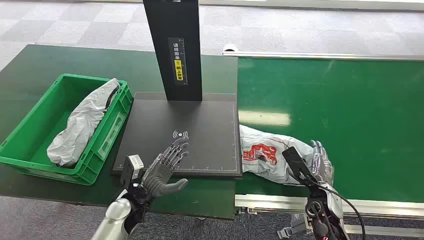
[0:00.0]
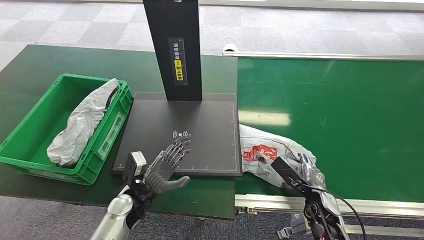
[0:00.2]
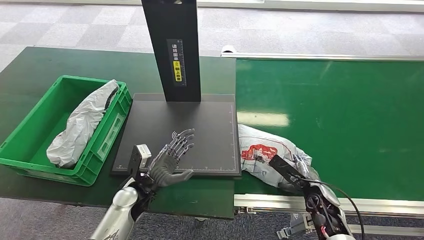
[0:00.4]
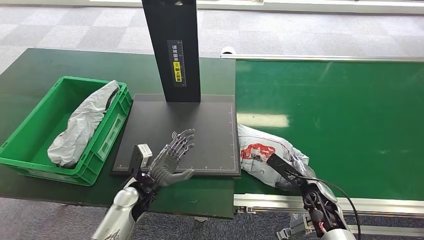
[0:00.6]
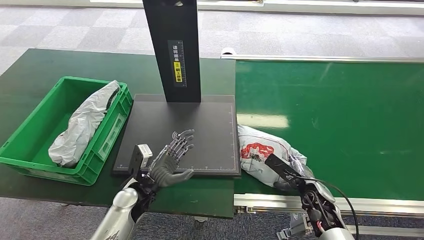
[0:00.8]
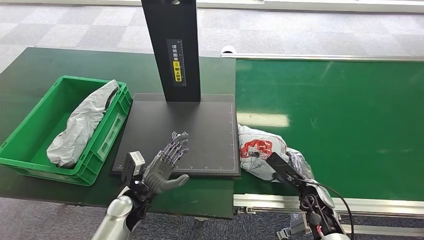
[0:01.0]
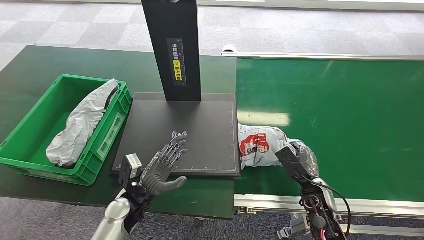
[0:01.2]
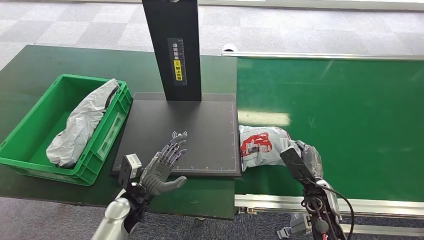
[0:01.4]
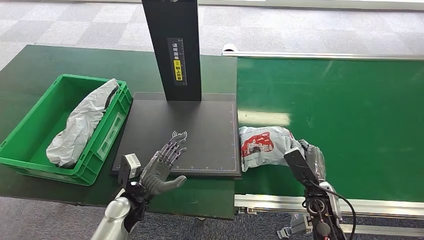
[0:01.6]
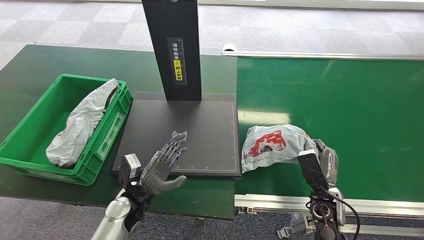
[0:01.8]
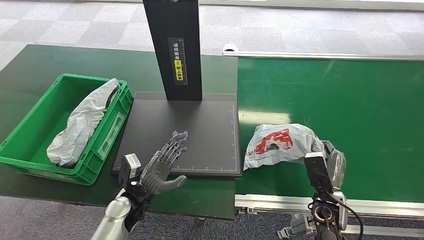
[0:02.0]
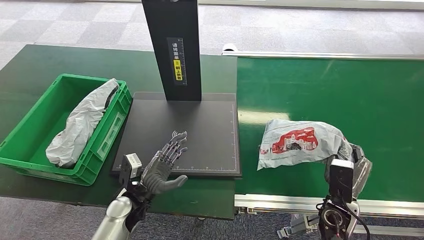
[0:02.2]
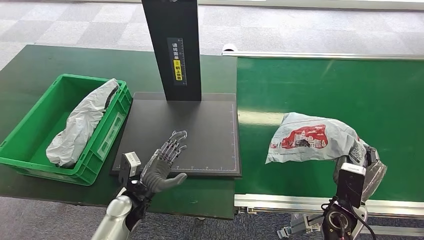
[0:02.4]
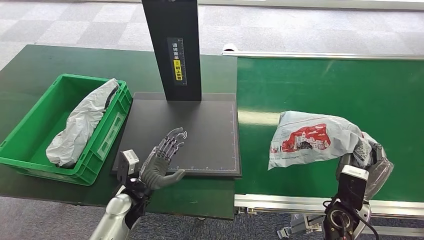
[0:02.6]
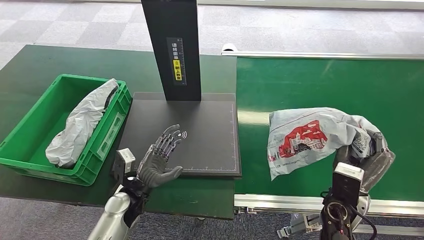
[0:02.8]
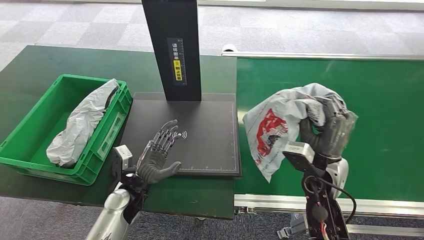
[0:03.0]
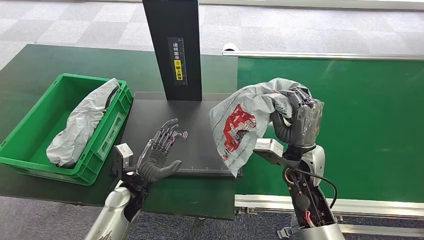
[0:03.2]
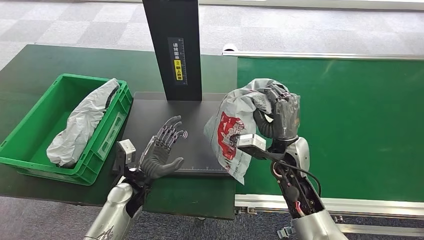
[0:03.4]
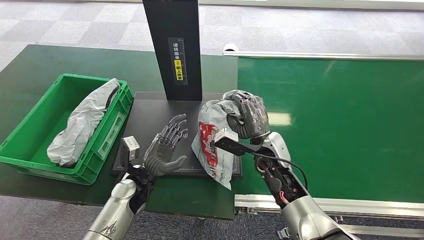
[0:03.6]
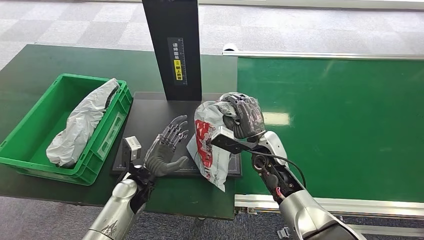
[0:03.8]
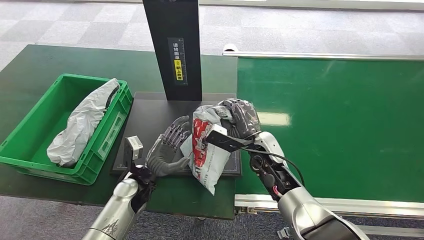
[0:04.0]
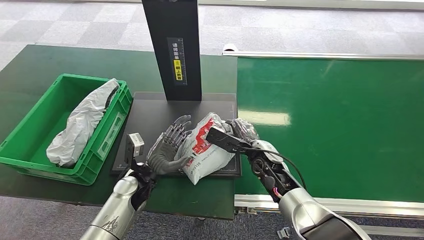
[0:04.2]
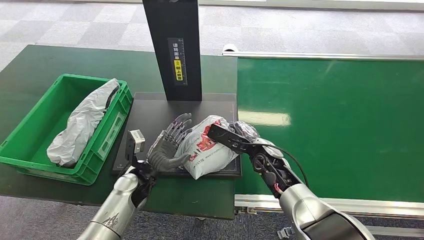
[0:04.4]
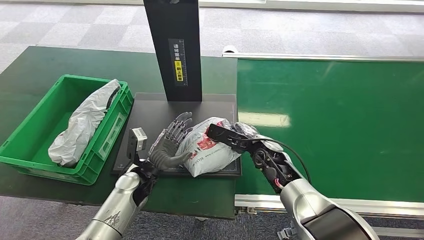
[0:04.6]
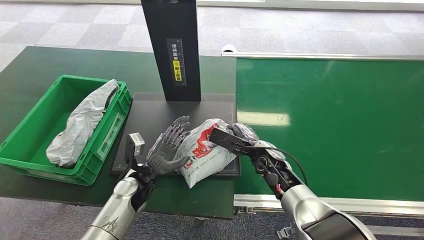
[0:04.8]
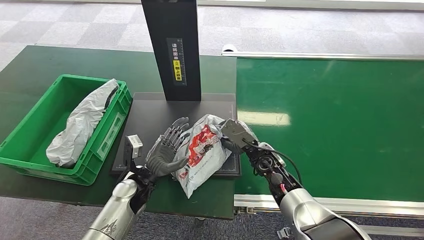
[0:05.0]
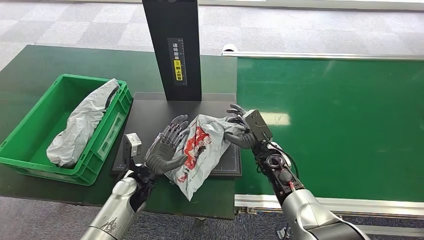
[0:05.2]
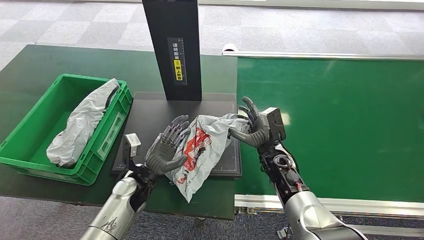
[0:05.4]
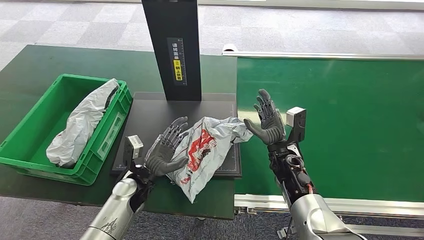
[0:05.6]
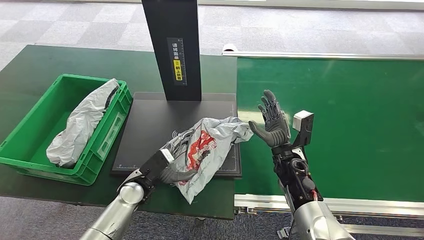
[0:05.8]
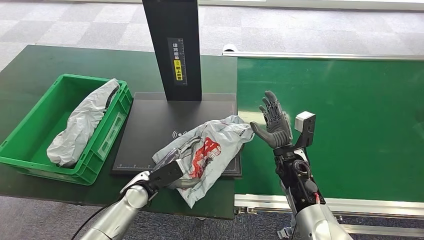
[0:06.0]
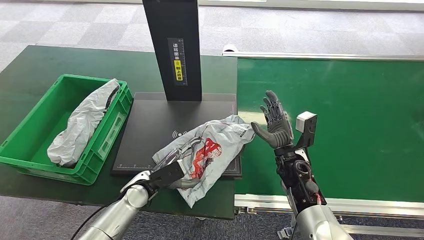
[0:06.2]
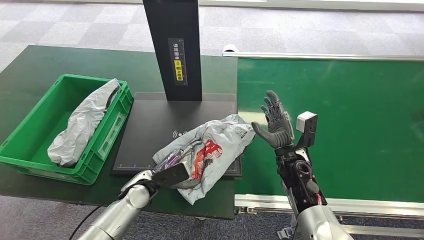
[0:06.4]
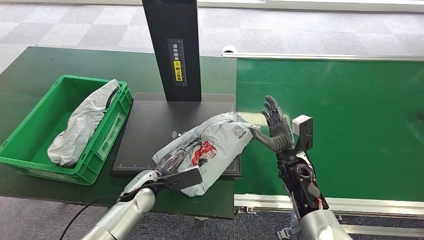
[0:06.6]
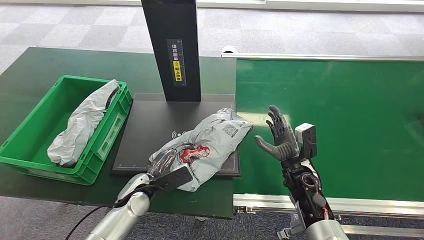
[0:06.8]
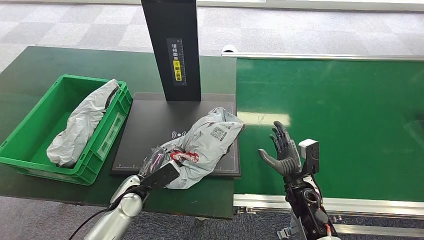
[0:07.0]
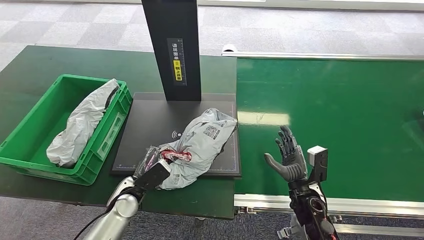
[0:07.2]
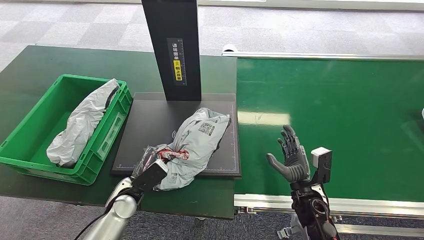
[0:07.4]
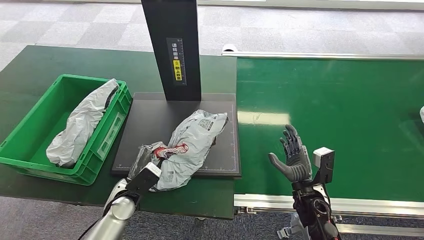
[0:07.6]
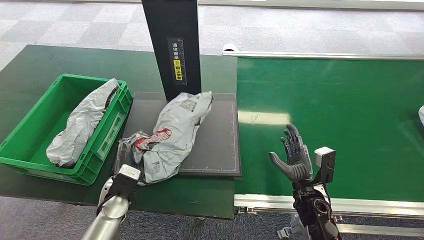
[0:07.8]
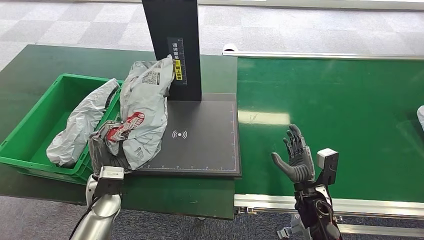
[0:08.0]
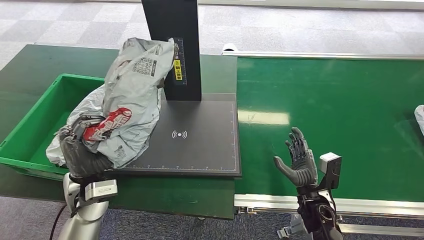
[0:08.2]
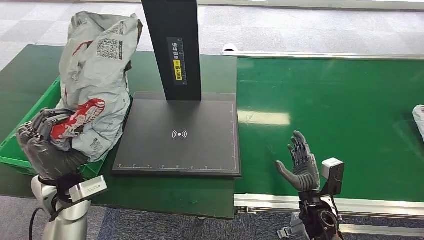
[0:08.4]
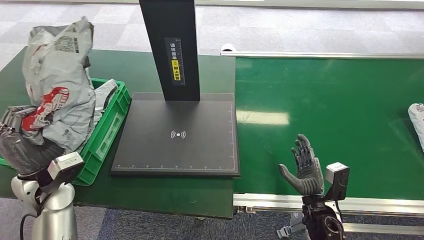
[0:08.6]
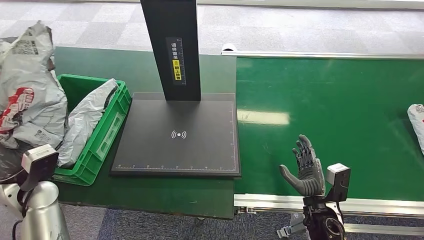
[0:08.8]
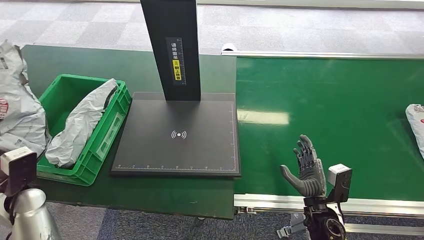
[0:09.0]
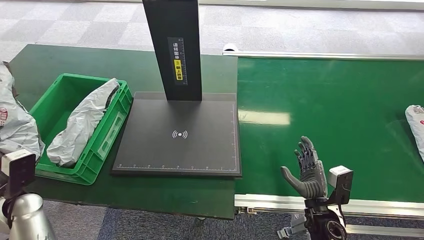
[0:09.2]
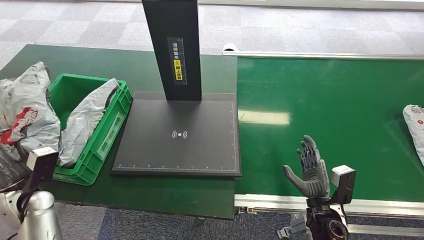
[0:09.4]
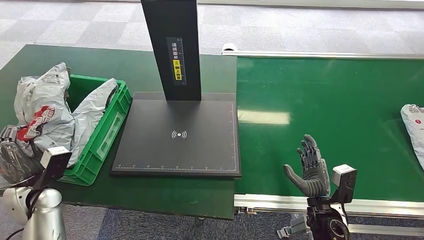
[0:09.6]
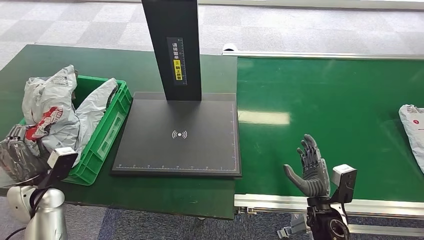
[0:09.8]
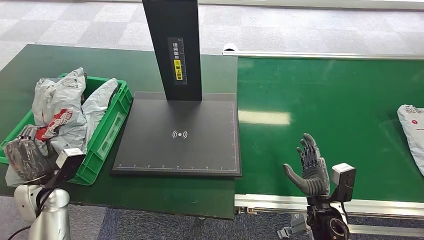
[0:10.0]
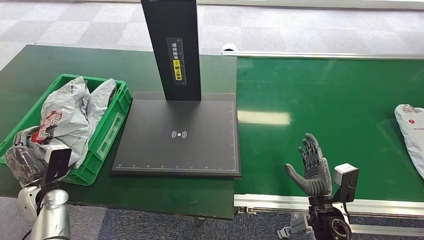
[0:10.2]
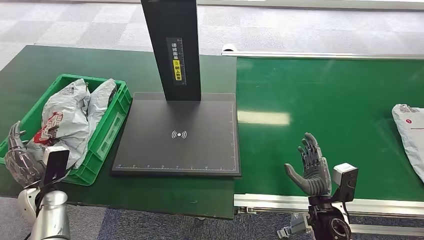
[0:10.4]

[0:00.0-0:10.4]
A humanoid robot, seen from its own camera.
Step, 0:00.0 to 0:02.4: Pick up the package from the conveyor belt.
Step, 0:02.8 to 0:05.8: Place the package onto the inbound machine.
Step, 0:06.0 to 0:08.0: Pick up the package from the inbound machine.
Step, 0:08.4 to 0:10.2: Place the package into the parcel locker.
0:01.4 to 0:03.0: The right hand shifts some 15 cm upward.
0:03.0 to 0:04.4: The right hand is displaced to the left, downward and forward by some 10 cm.
0:04.4 to 0:06.0: The right hand ends up about 5 cm from where it was.
0:06.0 to 0:07.4: The right hand shifts some 10 cm backward and downward.
0:09.0 to 0:10.4: The left hand moves downward, roughly 10 cm.
